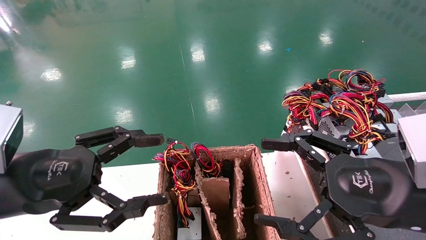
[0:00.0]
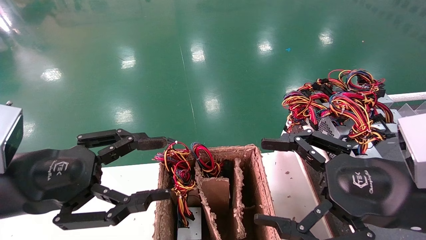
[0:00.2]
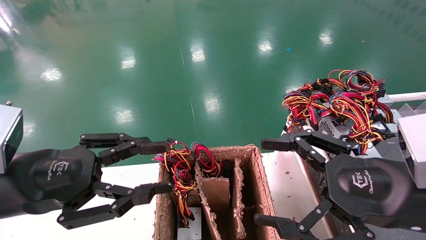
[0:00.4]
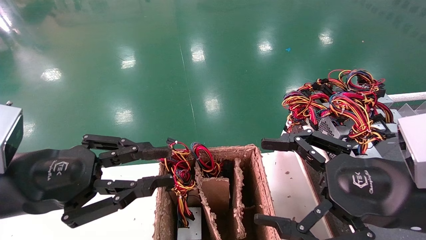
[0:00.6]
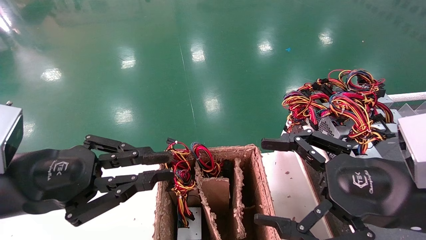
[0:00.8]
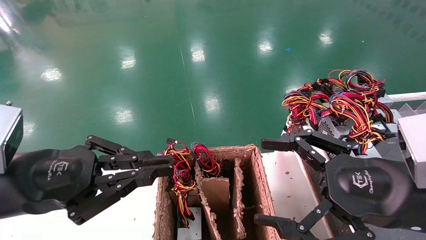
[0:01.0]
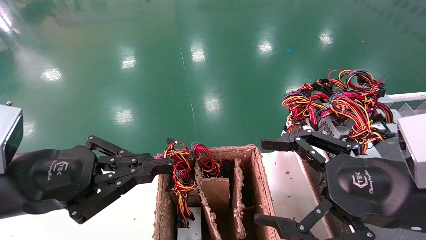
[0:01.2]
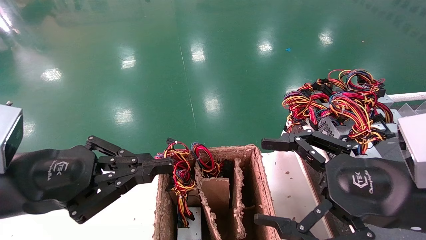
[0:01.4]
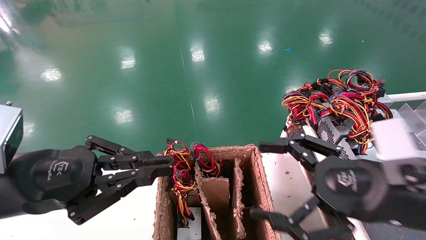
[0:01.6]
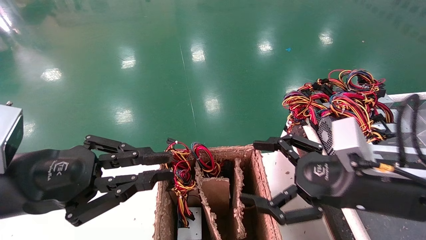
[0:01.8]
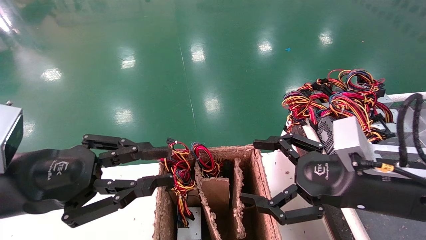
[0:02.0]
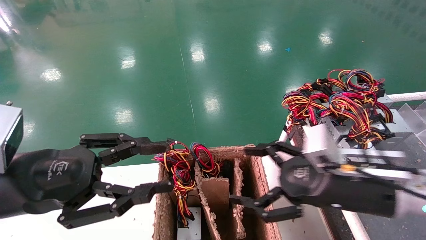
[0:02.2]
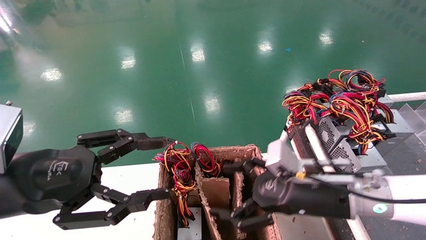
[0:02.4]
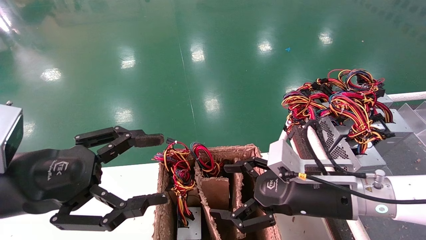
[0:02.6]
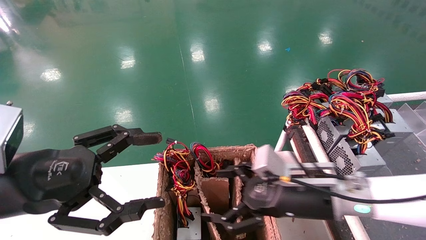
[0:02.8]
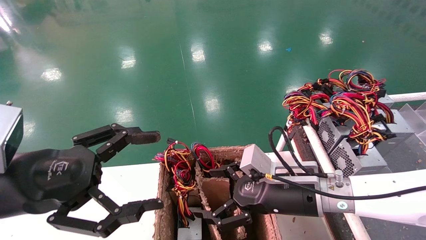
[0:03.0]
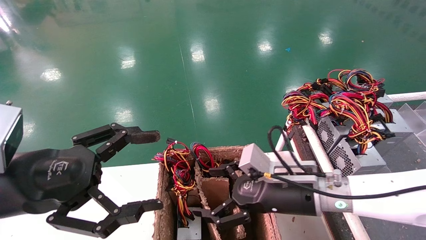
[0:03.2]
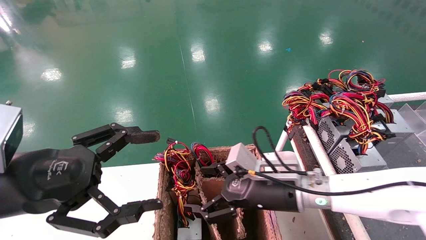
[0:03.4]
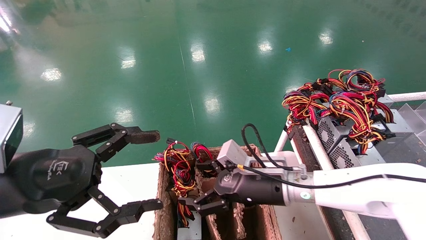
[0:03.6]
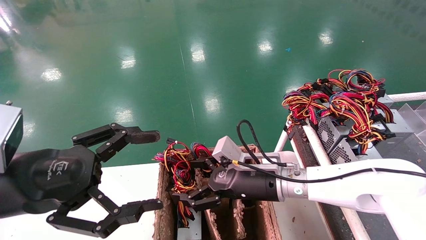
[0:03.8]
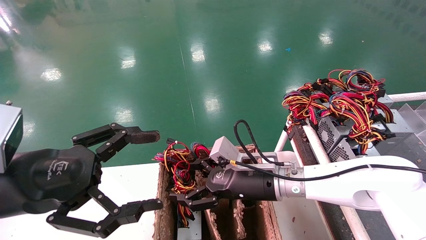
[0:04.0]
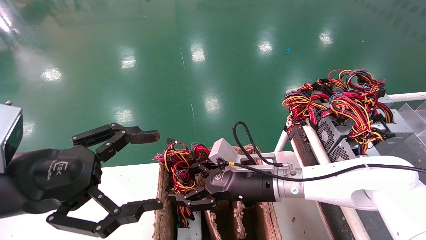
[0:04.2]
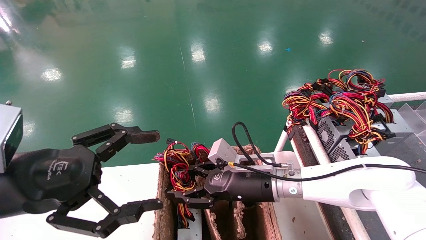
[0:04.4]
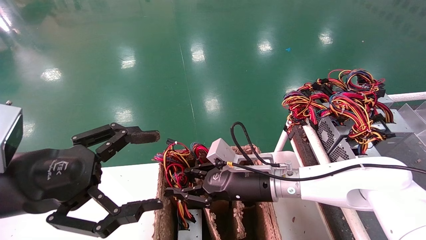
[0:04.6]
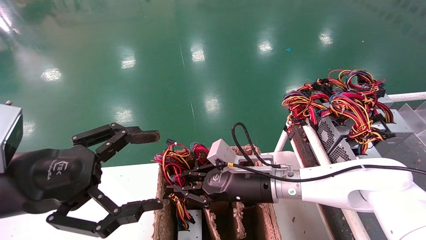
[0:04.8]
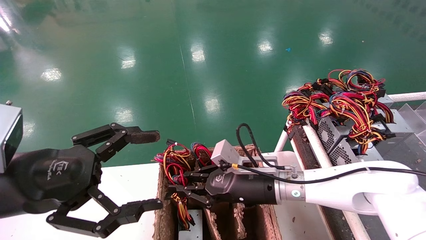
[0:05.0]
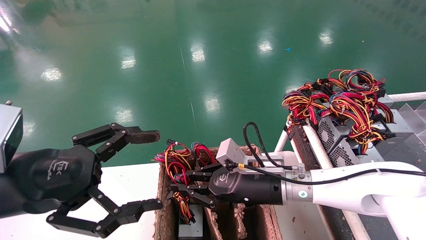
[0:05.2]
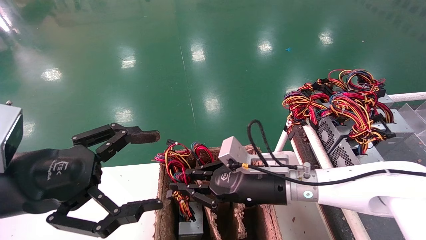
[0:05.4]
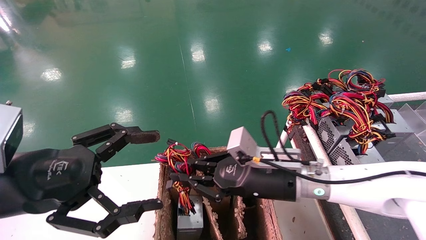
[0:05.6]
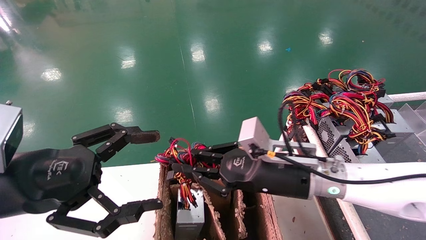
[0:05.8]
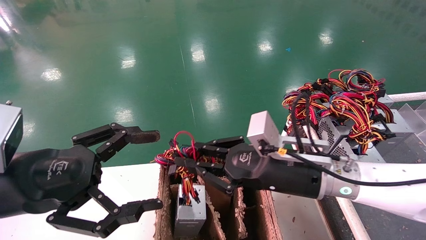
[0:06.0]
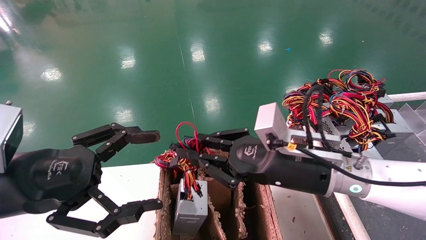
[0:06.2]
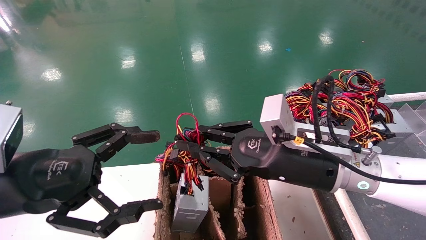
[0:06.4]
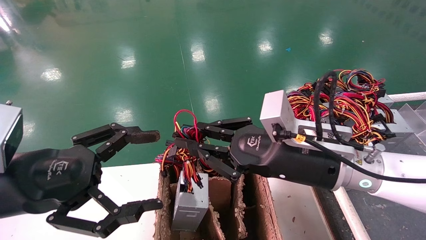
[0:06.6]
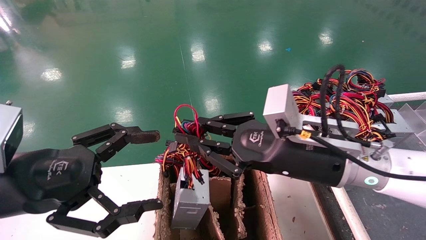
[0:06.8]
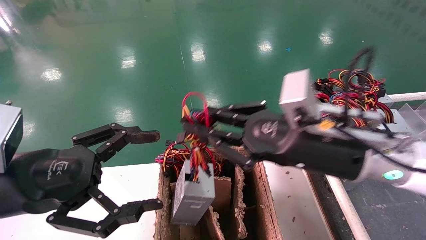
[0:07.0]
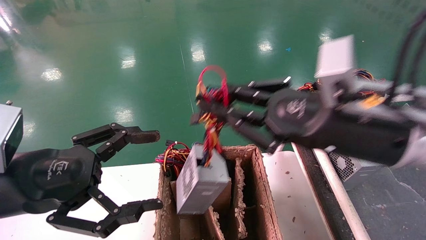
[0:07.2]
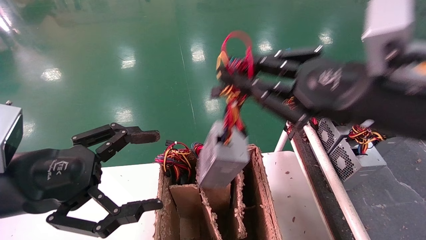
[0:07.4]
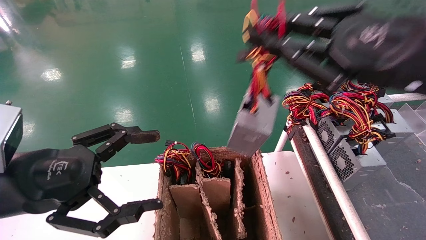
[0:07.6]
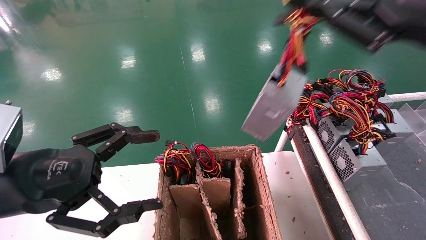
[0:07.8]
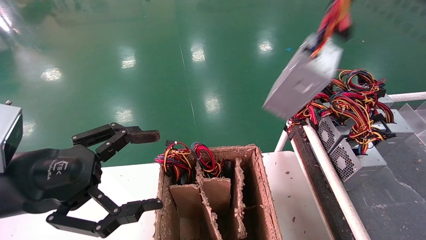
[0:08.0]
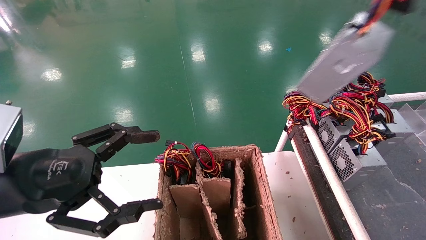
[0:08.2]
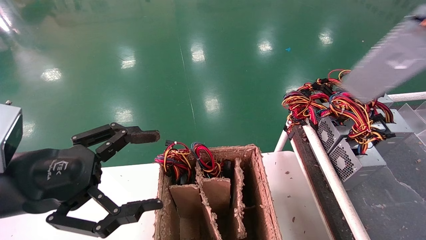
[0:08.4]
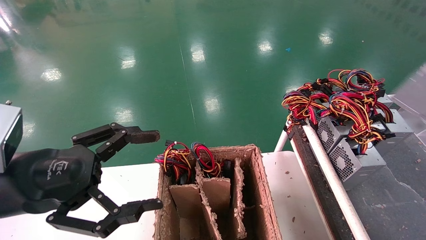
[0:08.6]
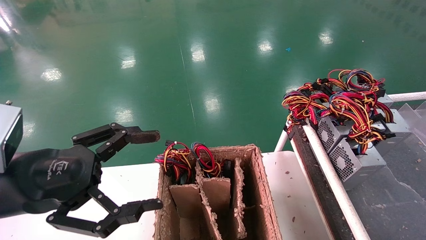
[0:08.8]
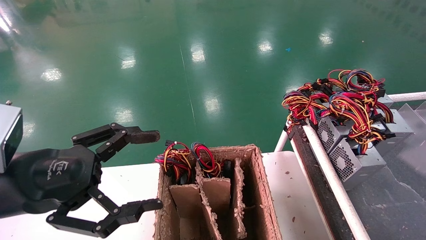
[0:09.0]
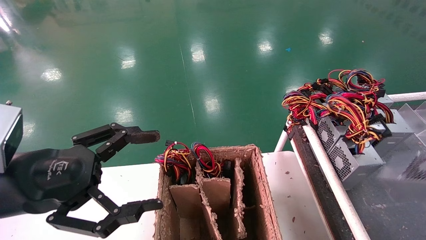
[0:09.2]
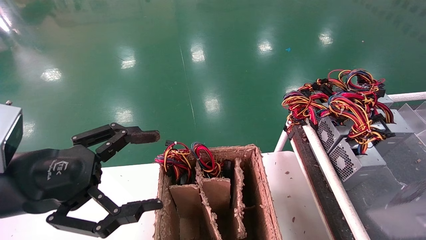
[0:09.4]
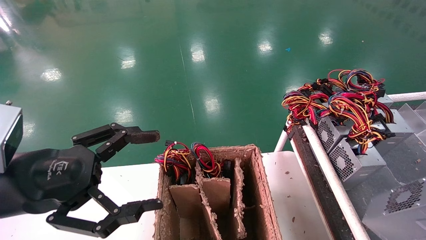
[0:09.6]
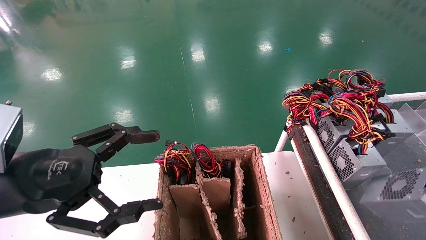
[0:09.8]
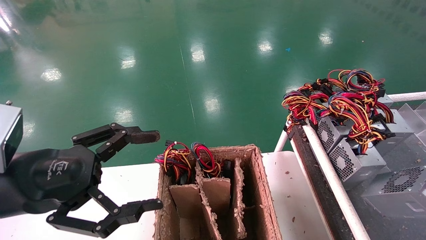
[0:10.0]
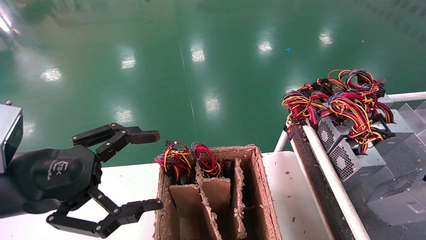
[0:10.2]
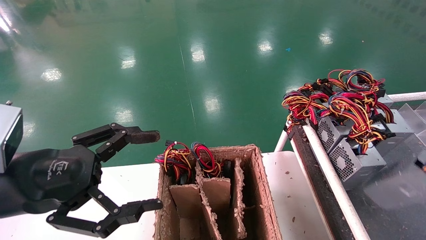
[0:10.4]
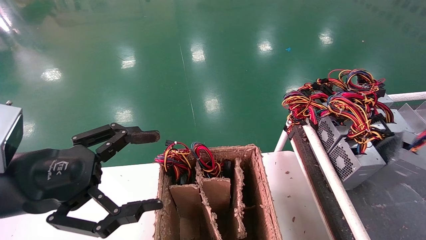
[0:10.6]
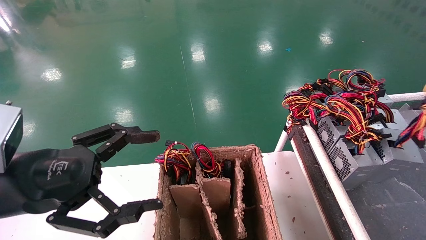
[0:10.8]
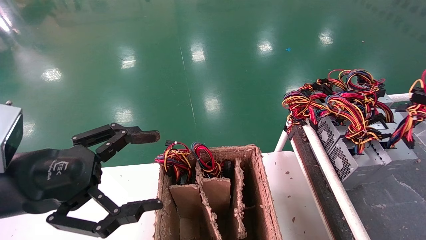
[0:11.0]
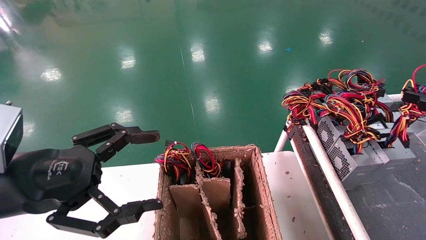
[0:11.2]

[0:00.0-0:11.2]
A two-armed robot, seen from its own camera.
Step, 0:01.8 to 0:05.2: Grab and lift the power supply from the large box.
0:00.0 to 0:01.6: The left gripper closes its fingers.
0:01.6 to 0:03.2: The right gripper travels forward, to the left and downward by approximately 15 cm. Meanwhile the left gripper opens.
0:03.2 to 0:04.8: The right gripper ends up approximately 5 cm from where it was, and closes its fingers.
0:04.8 to 0:06.4: The right gripper shifts some 15 cm upward, backward and to the right.
0:06.4 to 0:08.0: The right gripper travels upward, to the right and backward by approximately 30 cm.
0:08.0 to 0:09.6: The right gripper travels to the right, downward and backward by about 25 cm.
0:09.6 to 0:11.2: The right gripper travels forward and to the left by roughly 15 cm.

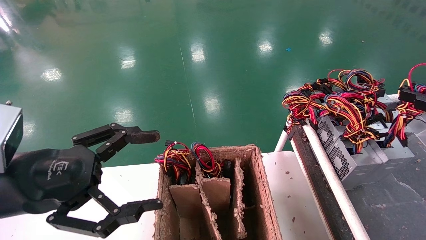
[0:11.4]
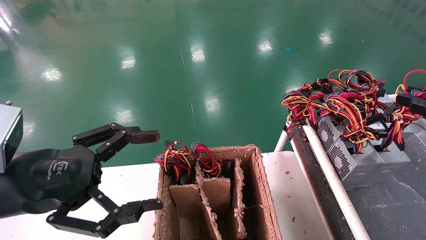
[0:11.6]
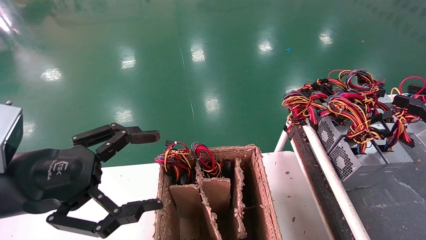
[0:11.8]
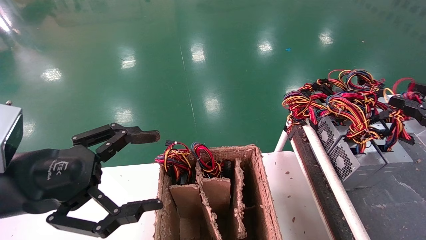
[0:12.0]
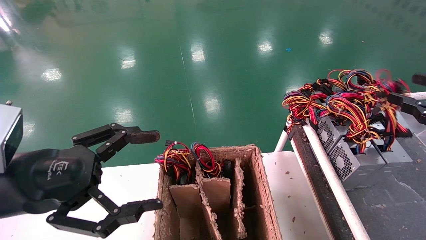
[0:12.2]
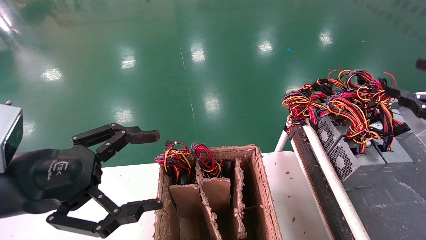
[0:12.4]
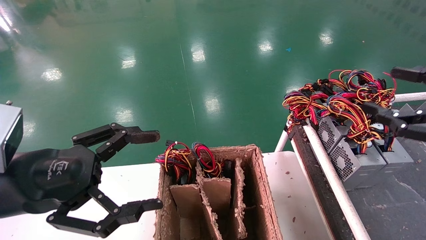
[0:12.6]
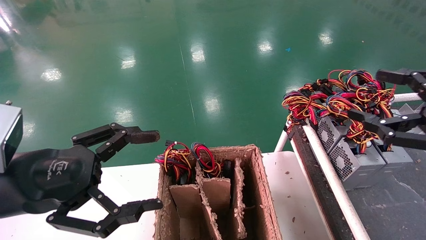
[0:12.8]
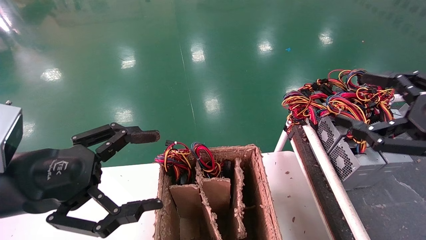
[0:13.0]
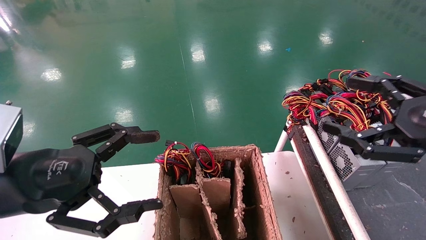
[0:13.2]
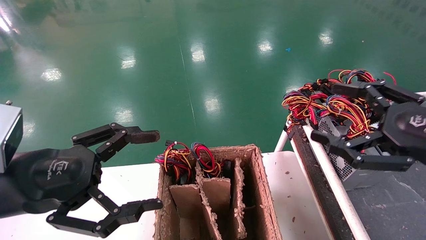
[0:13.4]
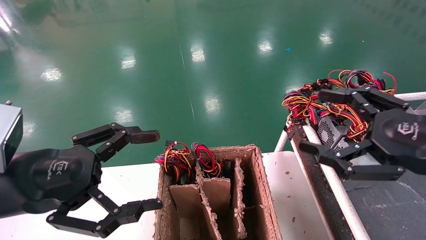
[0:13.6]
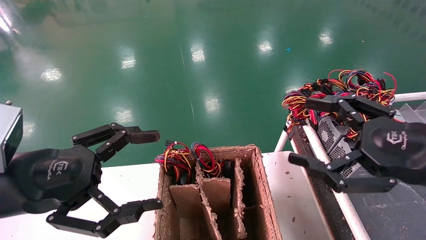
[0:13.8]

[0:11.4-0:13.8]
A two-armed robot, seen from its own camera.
0:11.4 to 0:12.6: The right gripper opens.
0:12.6 to 0:13.8: The right gripper shifts roughly 10 cm to the left.
